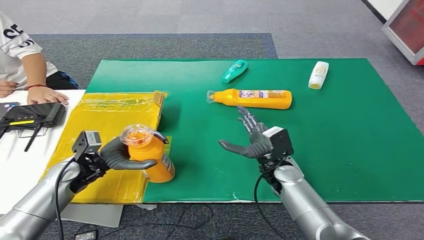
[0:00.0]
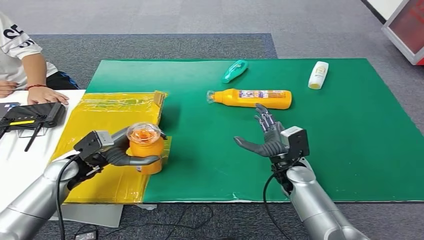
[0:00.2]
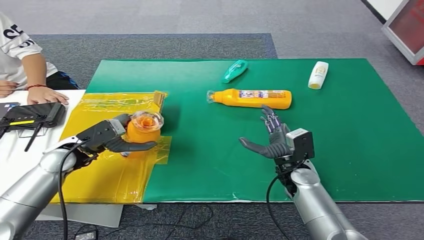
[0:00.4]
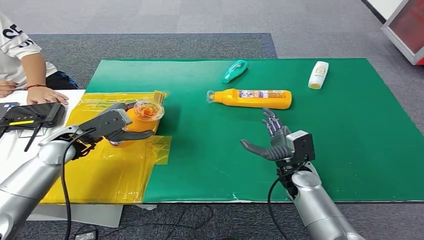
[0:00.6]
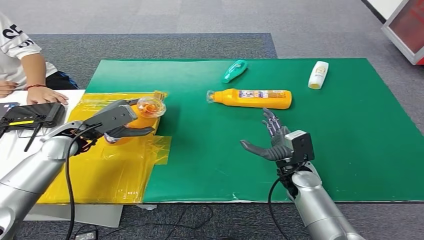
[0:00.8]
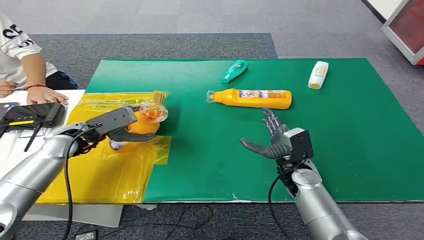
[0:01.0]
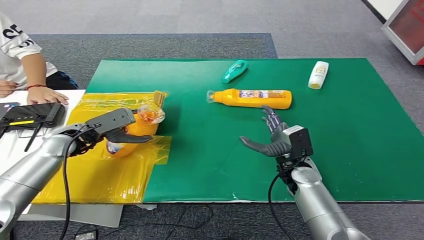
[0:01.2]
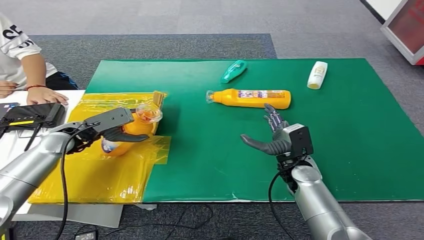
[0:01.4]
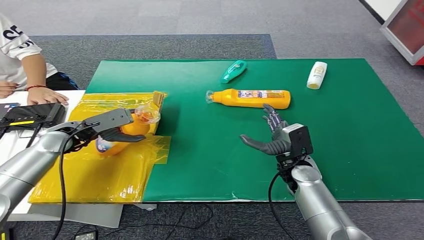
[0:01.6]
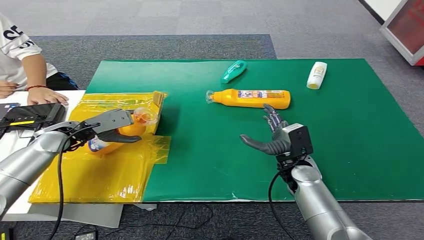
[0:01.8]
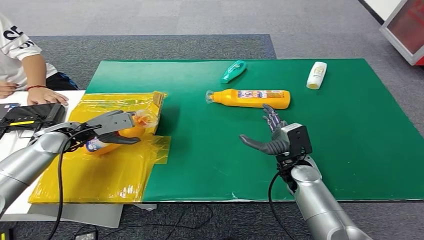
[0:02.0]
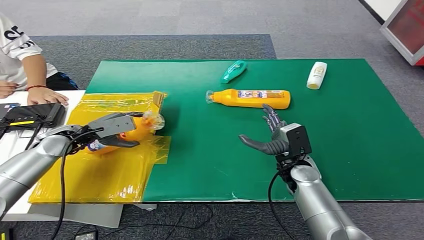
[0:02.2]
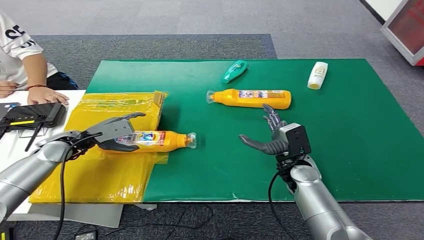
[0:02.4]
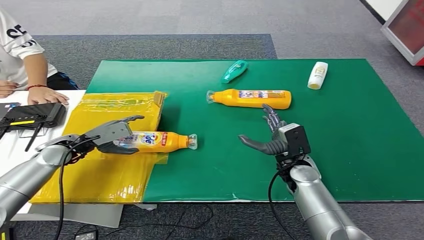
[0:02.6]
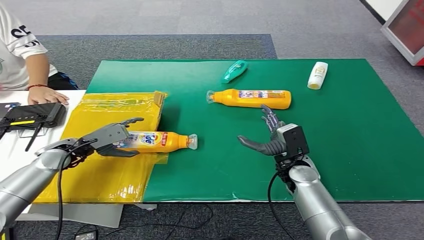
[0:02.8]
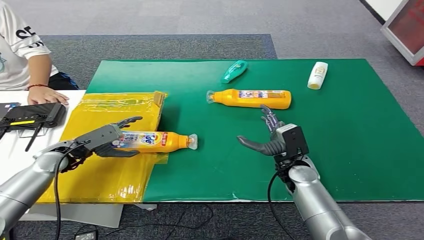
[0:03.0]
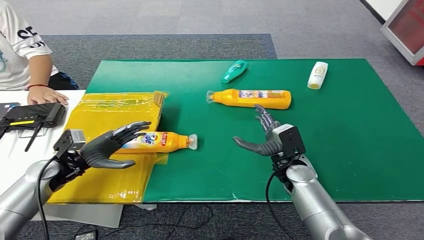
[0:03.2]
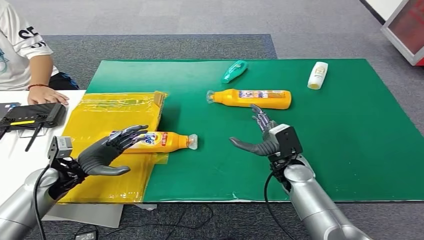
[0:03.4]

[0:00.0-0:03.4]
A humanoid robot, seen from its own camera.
Step, 0:00.0 to 0:03.4: Turn the bottle to the front side.
0:01.6 to 0:03.4: The left hand goes some 10 cm backward and downward.

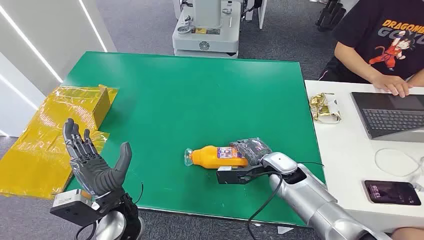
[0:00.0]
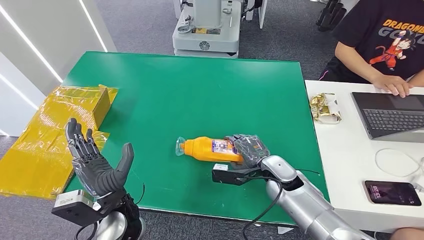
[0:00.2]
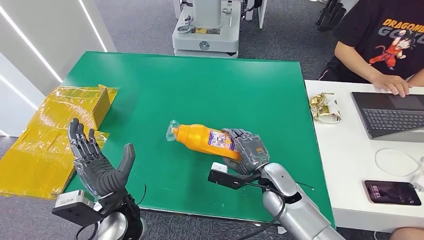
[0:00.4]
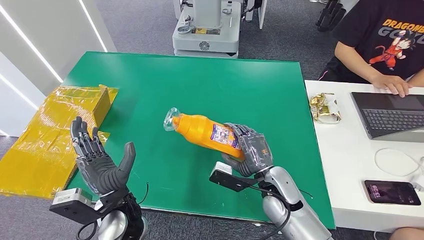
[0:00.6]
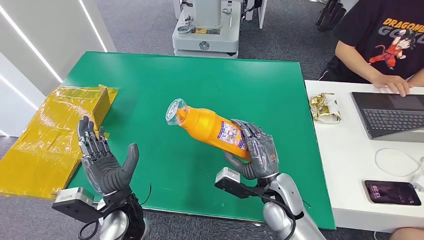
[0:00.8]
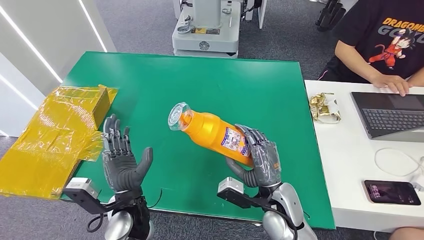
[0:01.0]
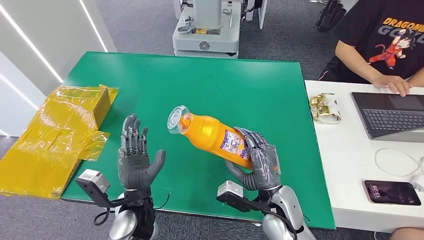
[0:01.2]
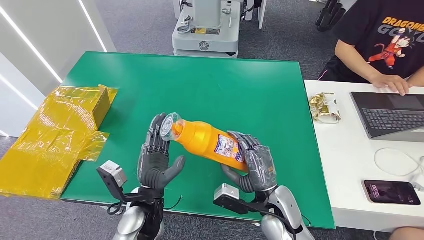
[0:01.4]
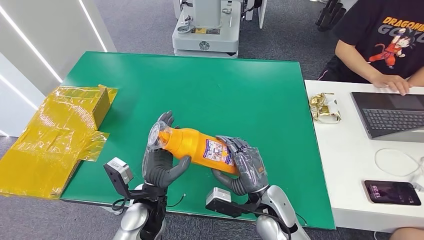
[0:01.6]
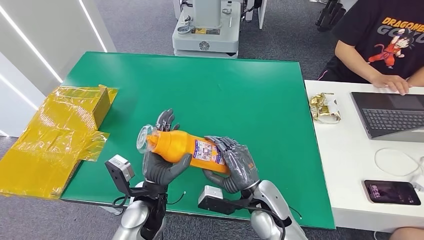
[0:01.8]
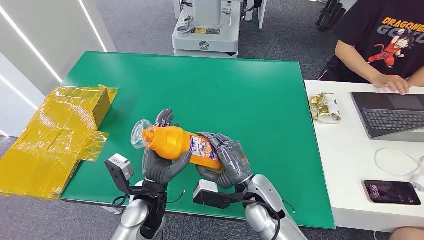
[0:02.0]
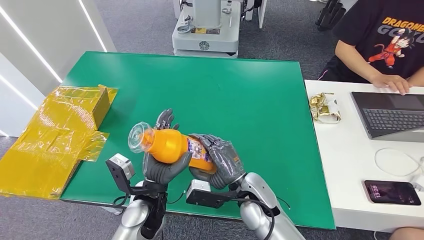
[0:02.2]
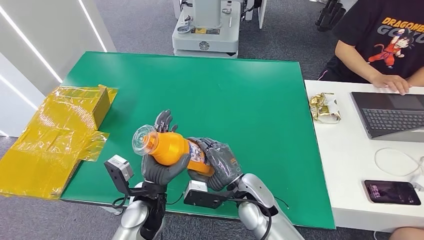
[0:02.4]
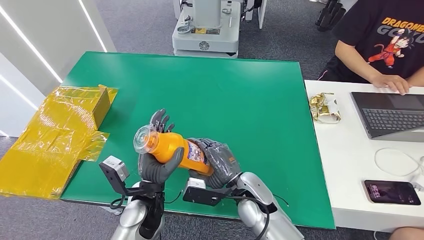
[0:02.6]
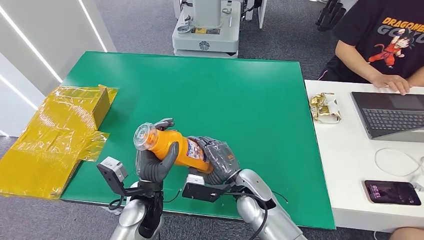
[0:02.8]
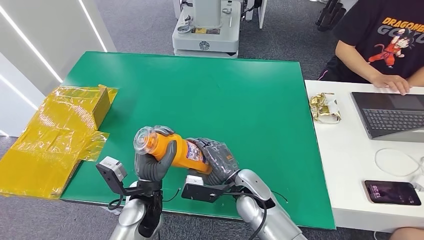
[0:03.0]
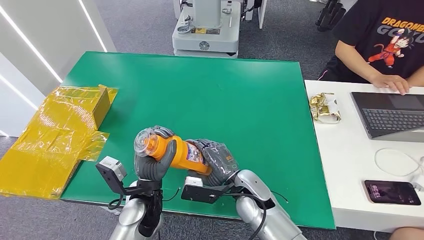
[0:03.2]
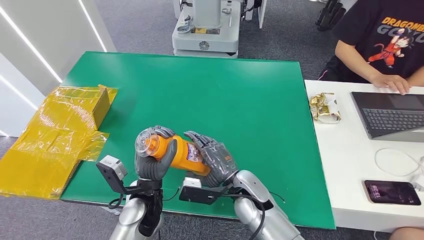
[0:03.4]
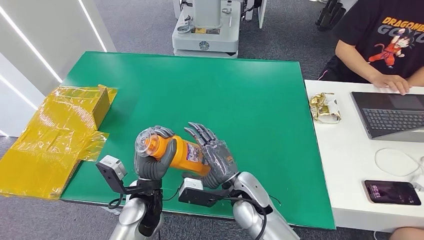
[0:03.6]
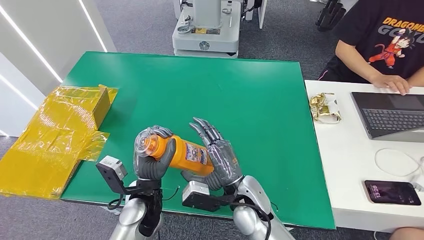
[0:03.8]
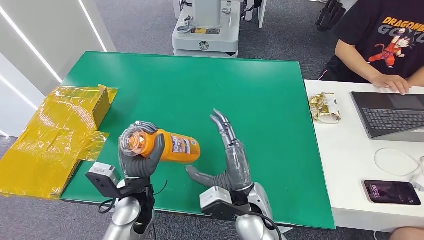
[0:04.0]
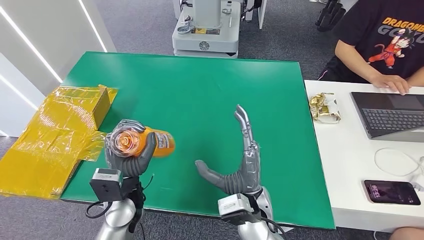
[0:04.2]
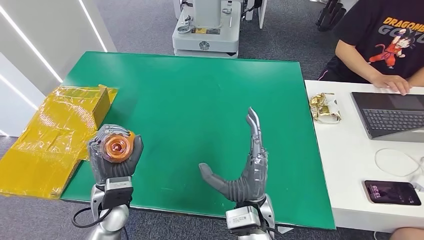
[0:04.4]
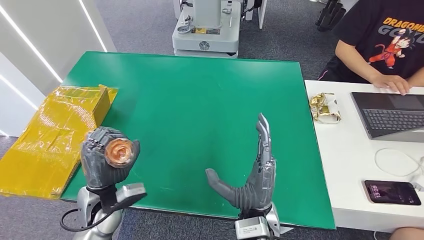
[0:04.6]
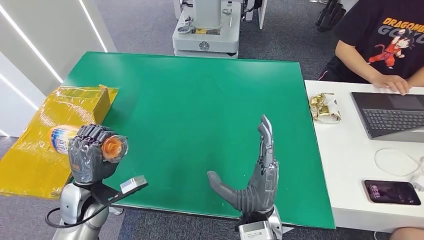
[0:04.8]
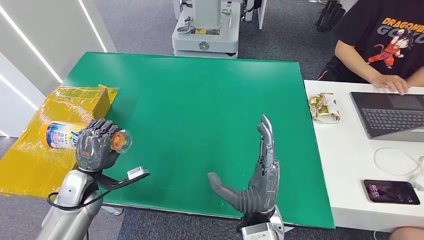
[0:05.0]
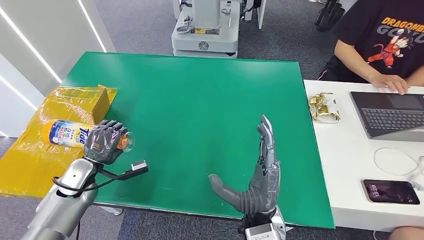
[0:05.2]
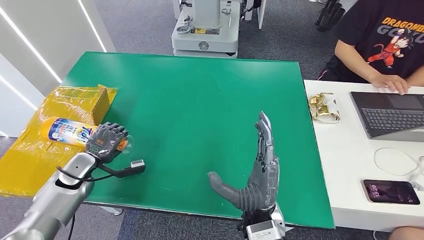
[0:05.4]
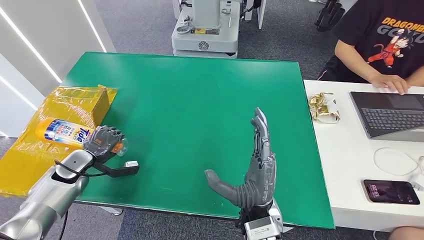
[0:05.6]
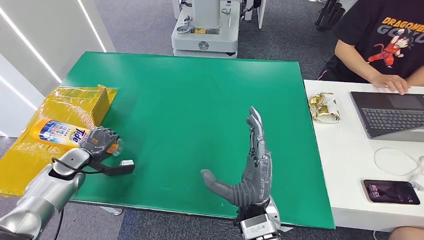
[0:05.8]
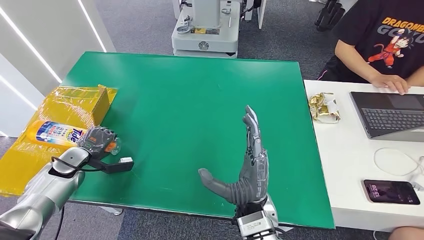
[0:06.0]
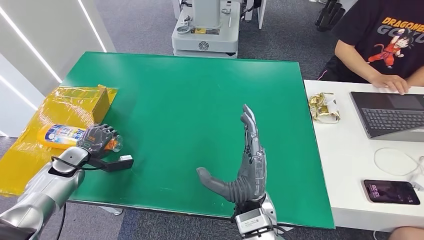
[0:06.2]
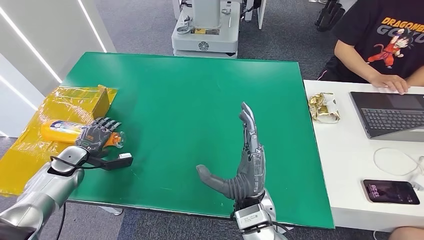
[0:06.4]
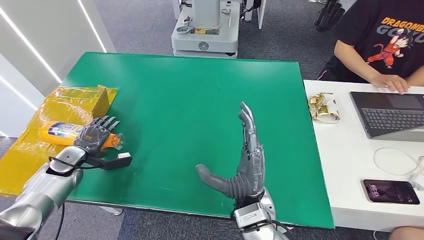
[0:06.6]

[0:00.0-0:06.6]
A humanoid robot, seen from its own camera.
Step, 0:00.0 to 0:02.8: Pick up the bottle from the table.
Step, 0:04.0 to 0:06.6: Turn the bottle to the front side.
0:01.6 to 0:03.2: The right hand is displaced to the left by some 5 cm.
0:03.2 to 0:05.0: The left hand heads to the left, covering about 20 cm. The right hand travels backward by about 10 cm.
0:05.0 to 0:06.6: The left hand moves to the left and forward, about 15 cm.

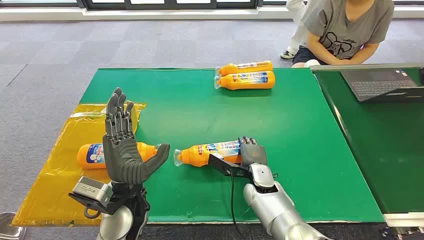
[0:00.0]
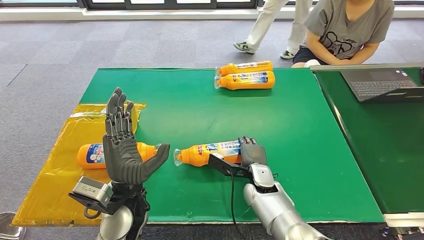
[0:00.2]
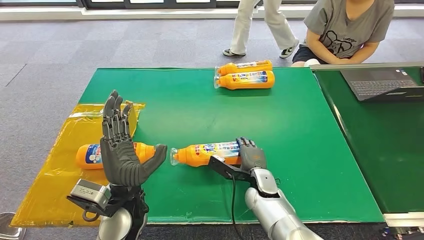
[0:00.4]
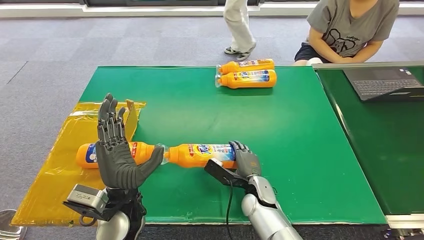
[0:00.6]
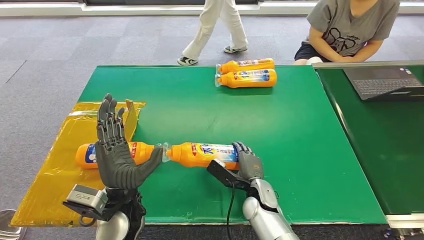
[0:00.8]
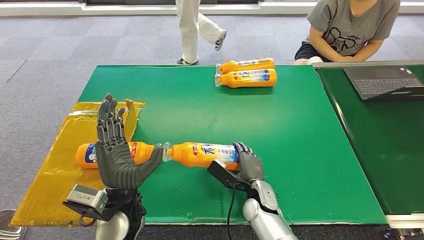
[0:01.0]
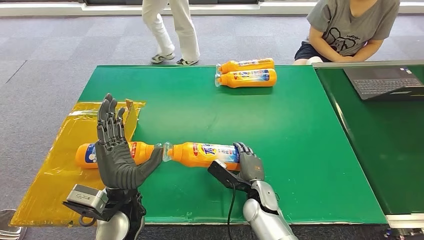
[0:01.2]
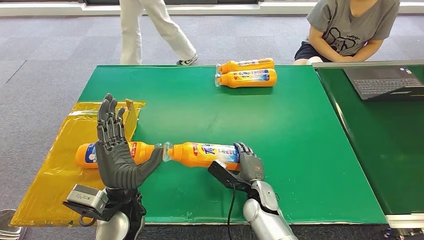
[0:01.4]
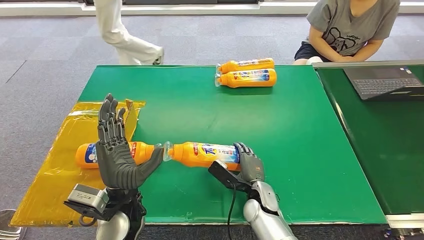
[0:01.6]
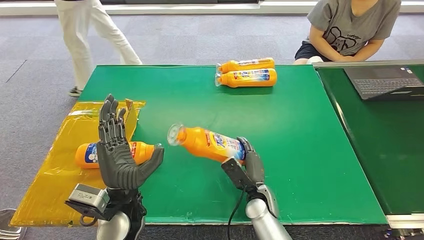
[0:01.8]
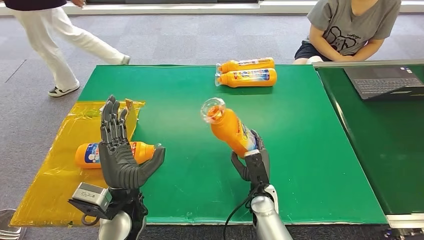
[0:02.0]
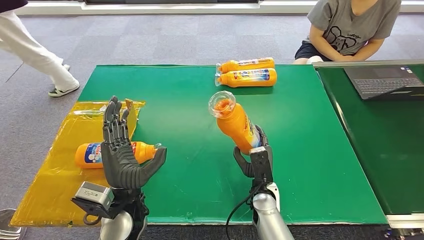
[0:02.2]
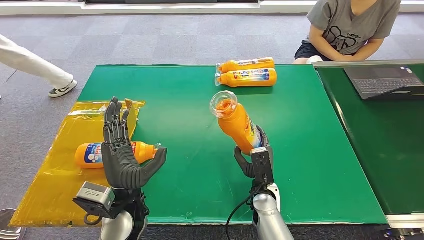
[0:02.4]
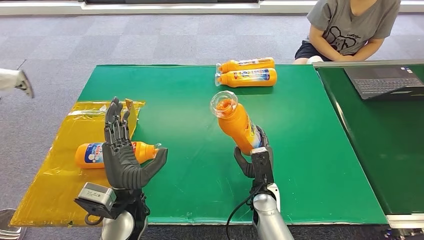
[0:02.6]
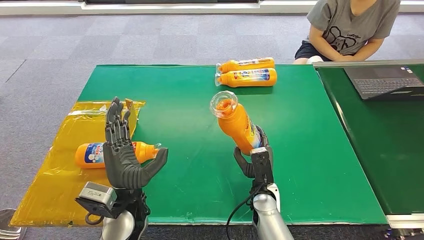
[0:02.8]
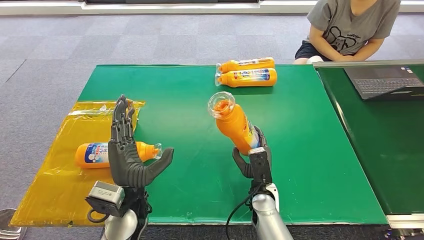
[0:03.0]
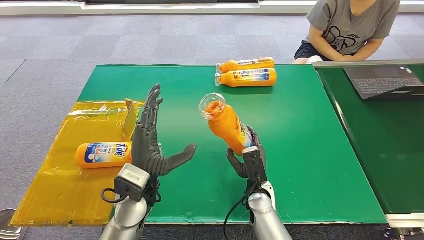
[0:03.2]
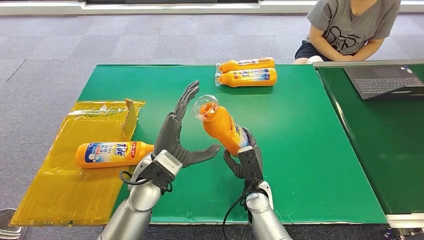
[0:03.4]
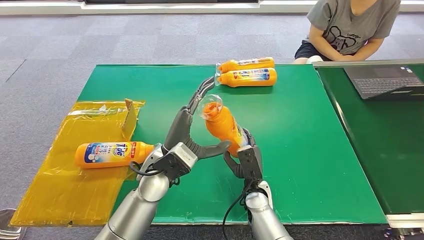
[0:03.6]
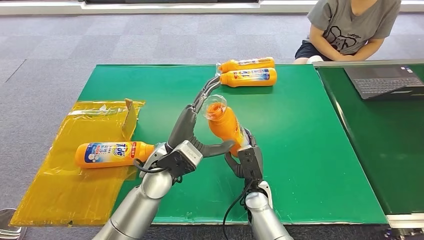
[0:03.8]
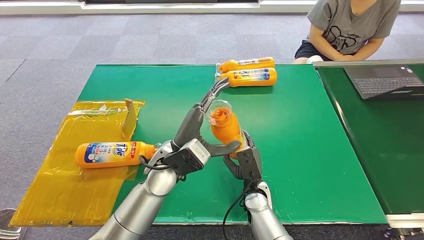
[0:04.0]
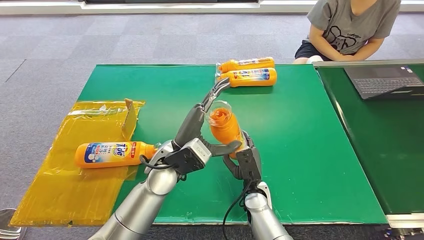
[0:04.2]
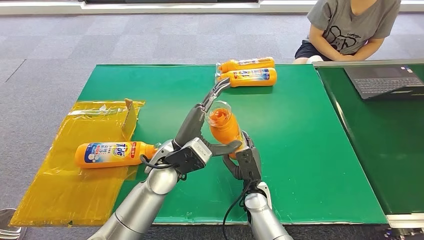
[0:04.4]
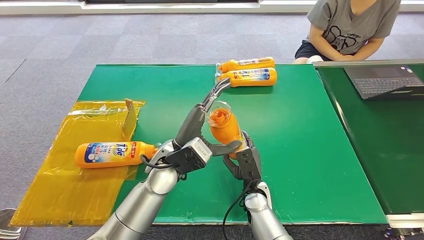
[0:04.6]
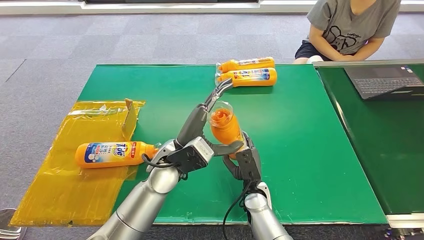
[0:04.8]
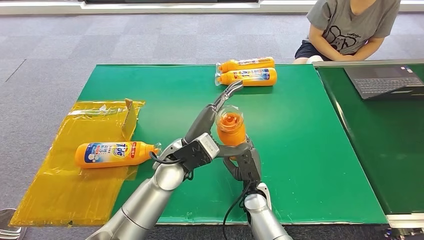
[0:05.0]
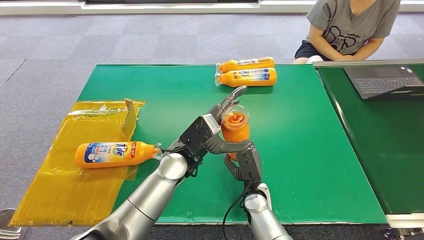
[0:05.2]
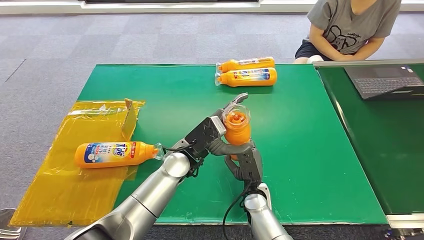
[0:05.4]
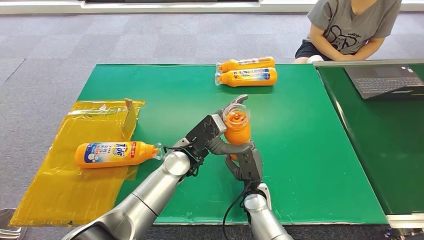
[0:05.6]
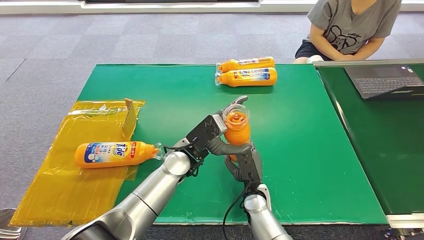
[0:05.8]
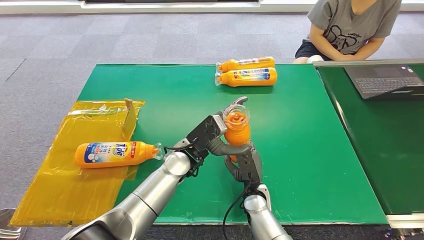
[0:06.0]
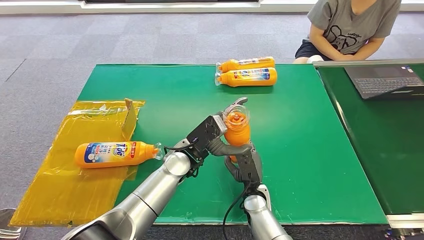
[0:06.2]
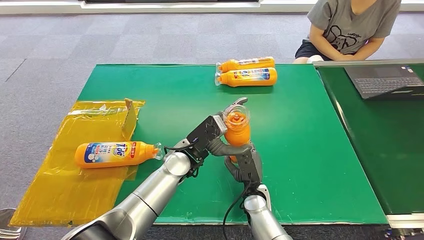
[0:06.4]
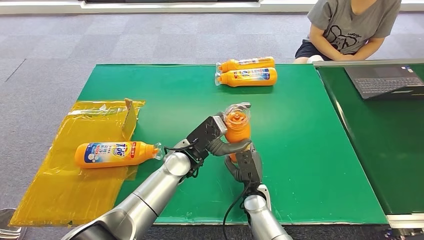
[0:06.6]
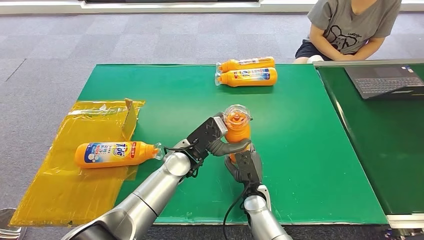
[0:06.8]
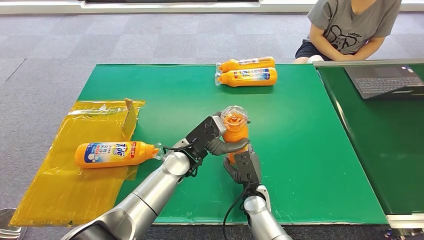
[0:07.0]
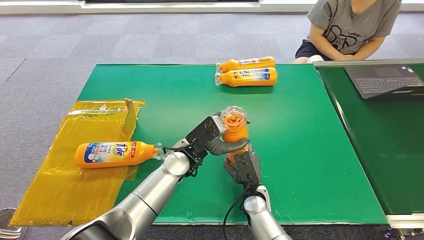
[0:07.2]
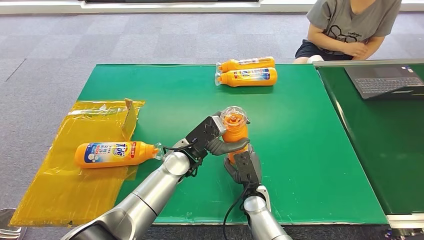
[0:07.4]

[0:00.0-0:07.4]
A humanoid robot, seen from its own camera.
Step, 0:00.0 to 0:02.4: Pick up the bottle from the table.
0:03.0 to 0:04.4: The left hand travels forward and to the right by roughly 10 cm.
0:06.0 to 0:07.4: Both hands stay put.
